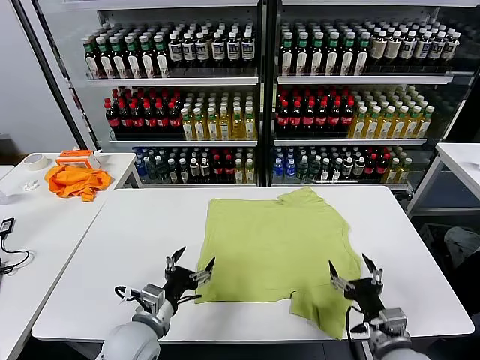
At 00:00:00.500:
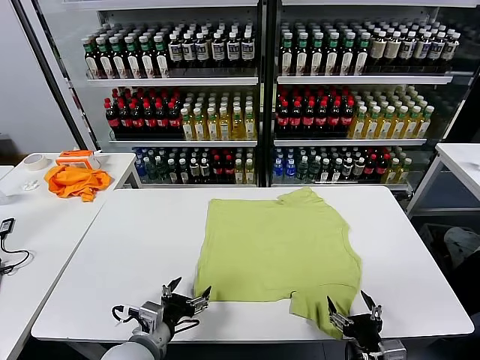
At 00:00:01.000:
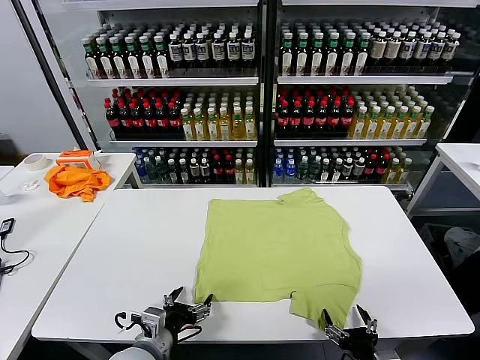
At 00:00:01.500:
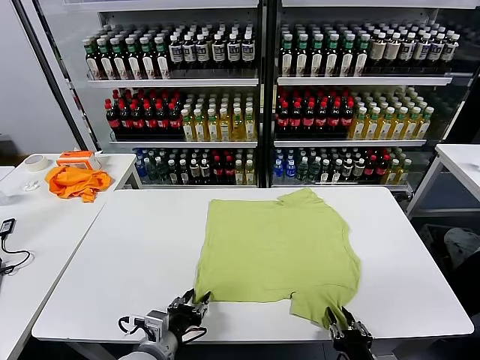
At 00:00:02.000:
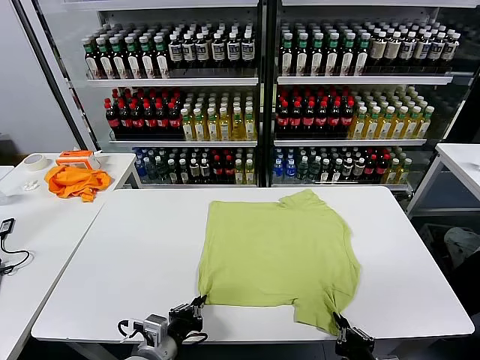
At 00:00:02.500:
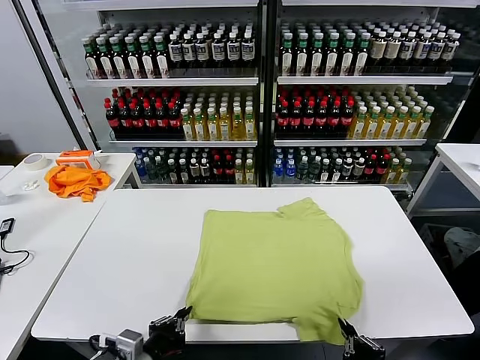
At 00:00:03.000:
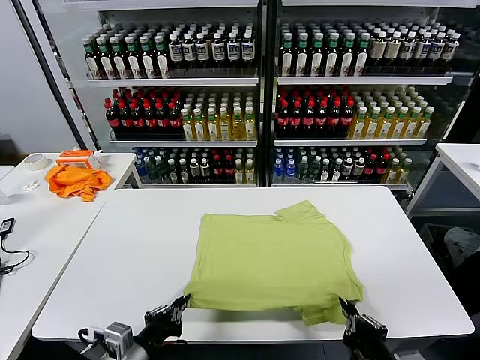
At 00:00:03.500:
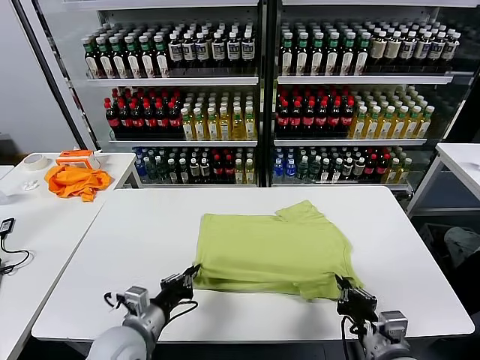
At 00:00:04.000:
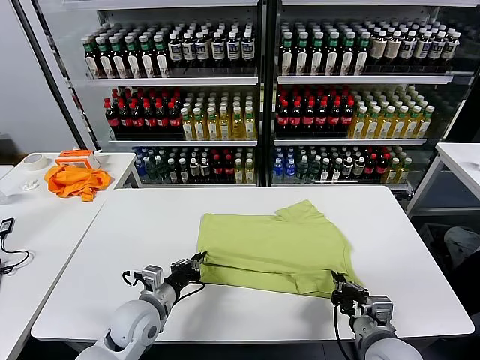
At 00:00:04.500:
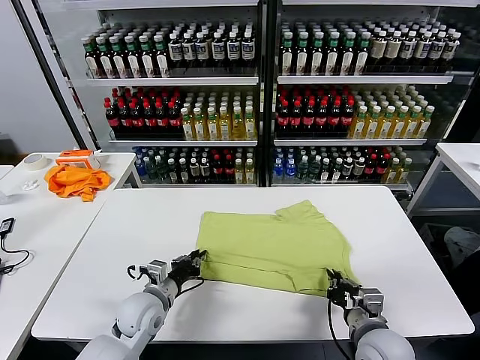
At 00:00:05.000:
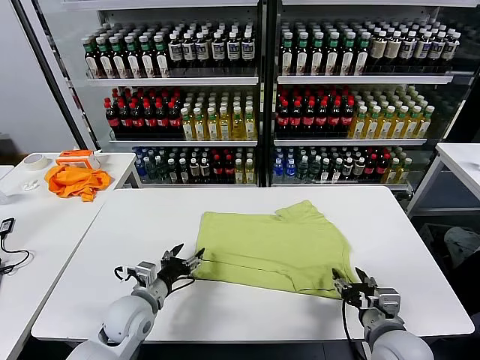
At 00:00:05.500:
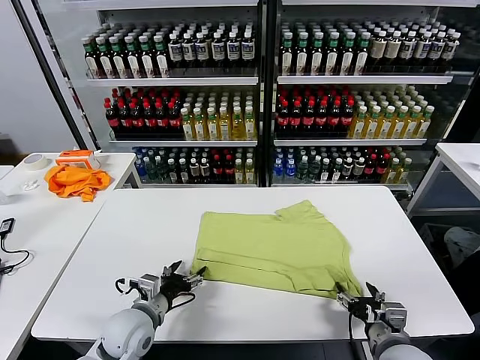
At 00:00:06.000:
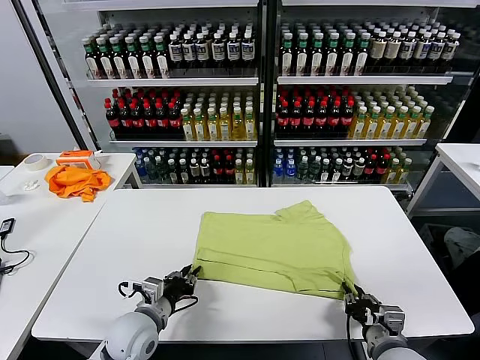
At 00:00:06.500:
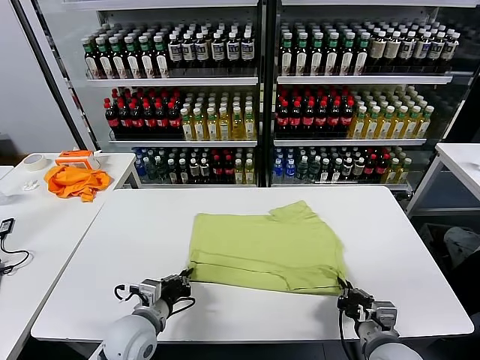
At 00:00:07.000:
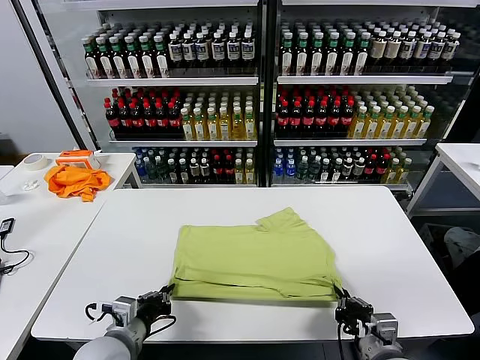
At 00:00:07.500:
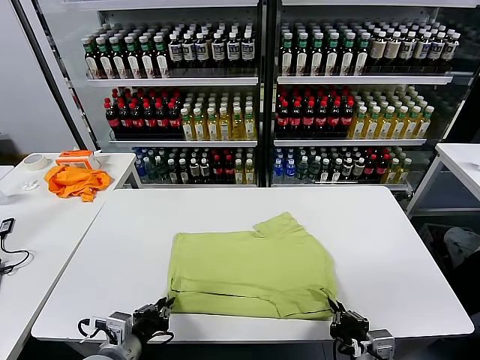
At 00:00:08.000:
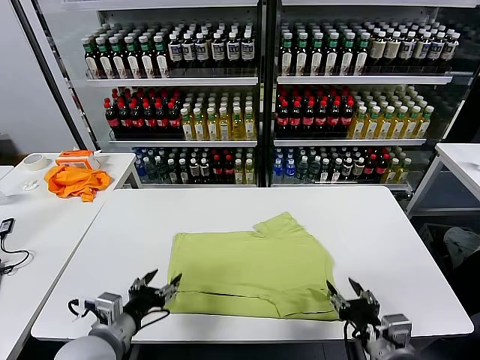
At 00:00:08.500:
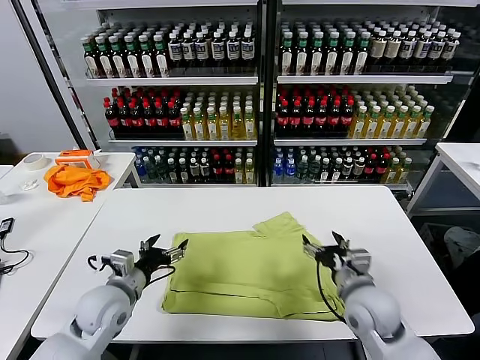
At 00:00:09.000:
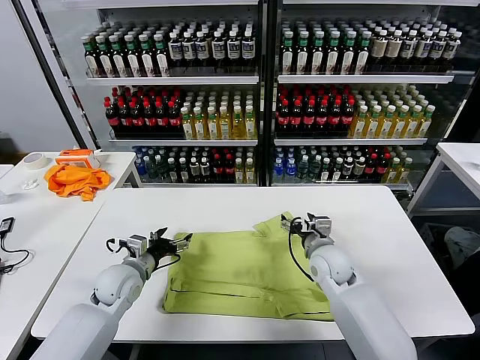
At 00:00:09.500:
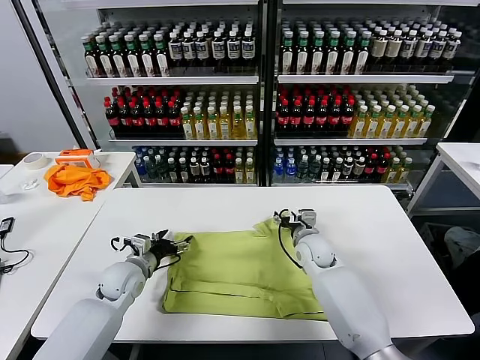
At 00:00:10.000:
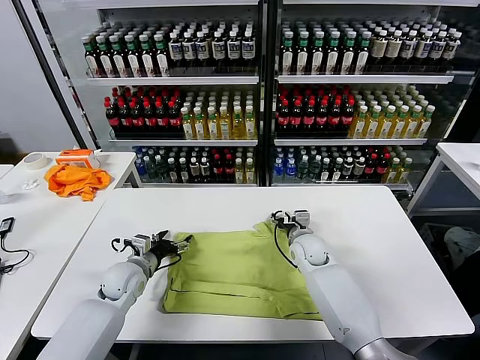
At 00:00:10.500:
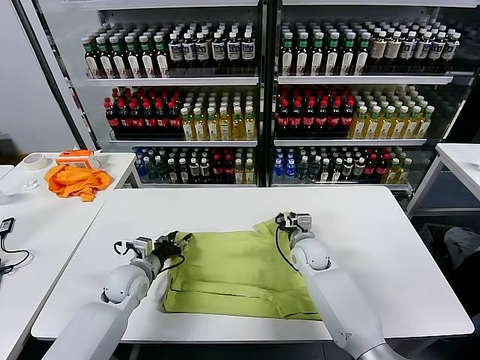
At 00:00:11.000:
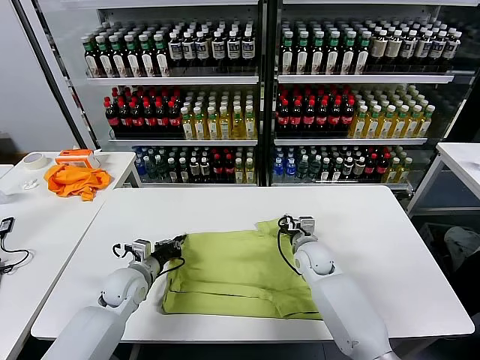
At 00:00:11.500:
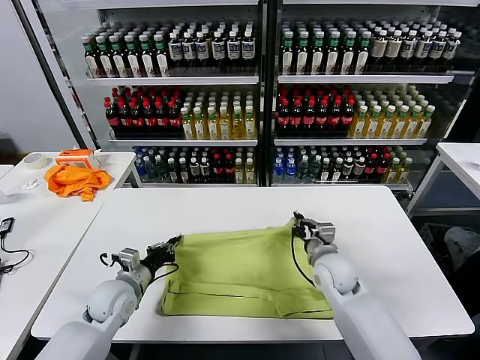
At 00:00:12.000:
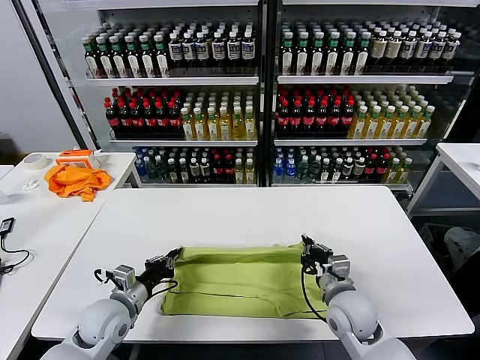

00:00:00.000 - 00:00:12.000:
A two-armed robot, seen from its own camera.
Task of the whole recording: fold and organize the clothes.
Step, 00:00:00.000 - 00:00:01.500: use both grippers simultaneously to clamp the lower edge of the clothing fabric.
Step, 00:00:02.000 - 00:00:04.500: use both grippers to drag the lower edge of the fabric forward and fold it over the upper edge.
Step, 00:00:05.000 - 00:00:07.500: Drag the clothes downward with both gripper.
Step, 00:00:08.000 - 00:00:10.500: use both grippers simultaneously to clamp the upper edge of the clothing fabric.
00:00:02.000 - 00:00:04.000: Both grippers move forward, approximately 10 cm.
00:00:04.000 - 00:00:06.000: The right gripper opens, then closes again. Meanwhile the left gripper opens and closes again.
00:00:06.000 - 00:00:08.000: The right gripper moves upward, roughly 5 cm, and opens its fingers. Meanwhile the left gripper shifts about 10 cm upward and backward, and opens up.
00:00:08.000 - 00:00:10.000: The left gripper is displaced forward and downward by about 20 cm. The right gripper travels forward by approximately 30 cm.
00:00:10.000 - 00:00:12.000: The left gripper shifts some 10 cm backward, and closes its fingers. Meanwhile the right gripper moves backward, about 20 cm, and closes.

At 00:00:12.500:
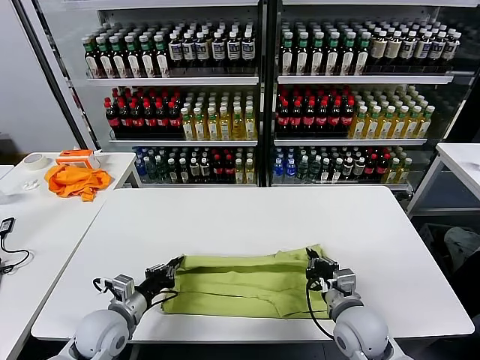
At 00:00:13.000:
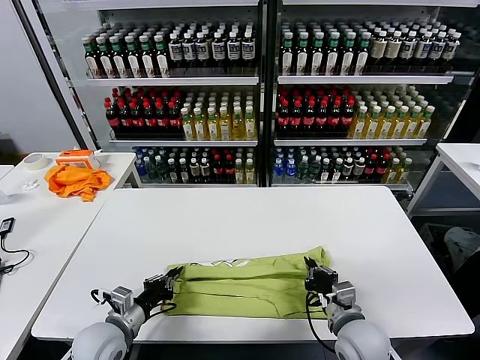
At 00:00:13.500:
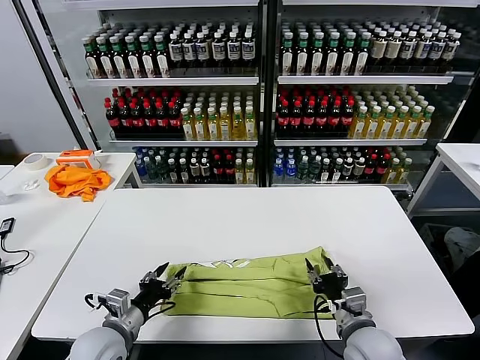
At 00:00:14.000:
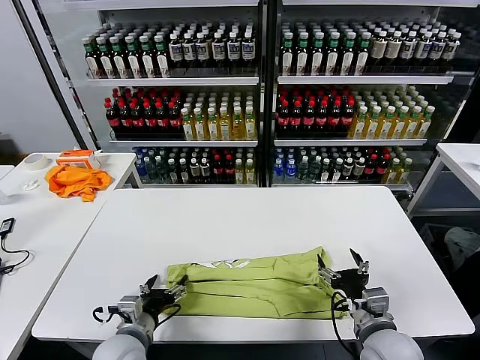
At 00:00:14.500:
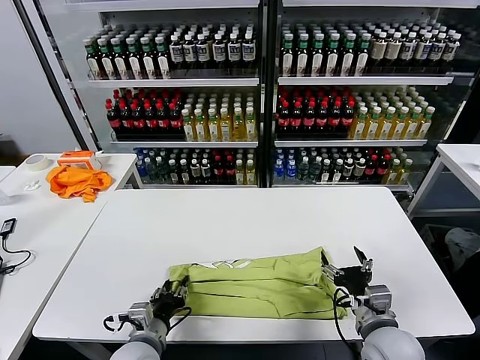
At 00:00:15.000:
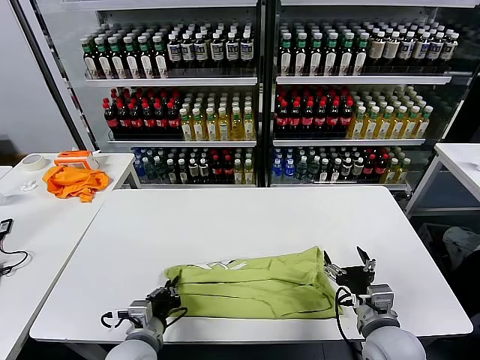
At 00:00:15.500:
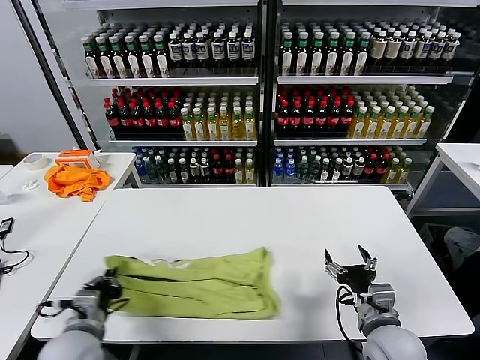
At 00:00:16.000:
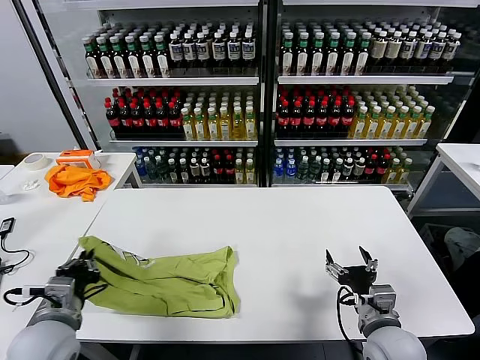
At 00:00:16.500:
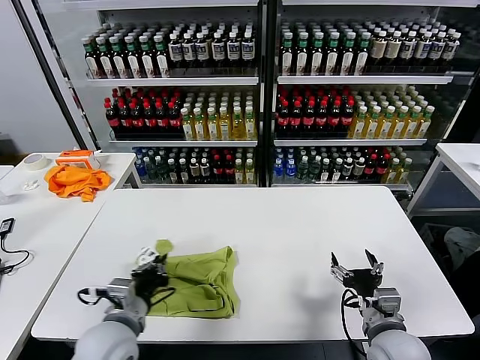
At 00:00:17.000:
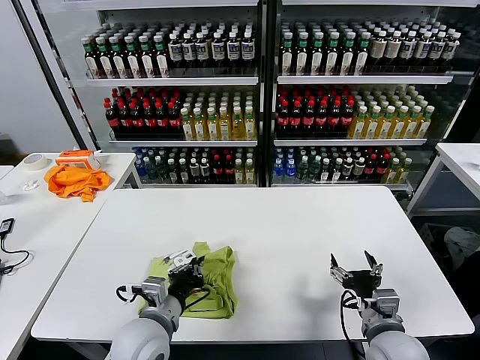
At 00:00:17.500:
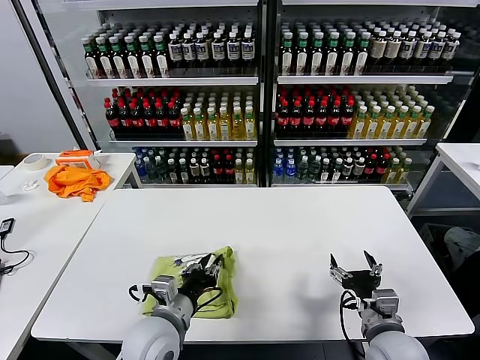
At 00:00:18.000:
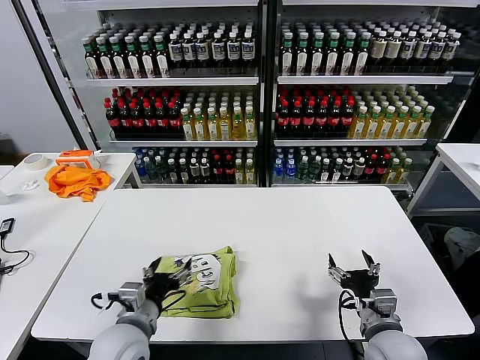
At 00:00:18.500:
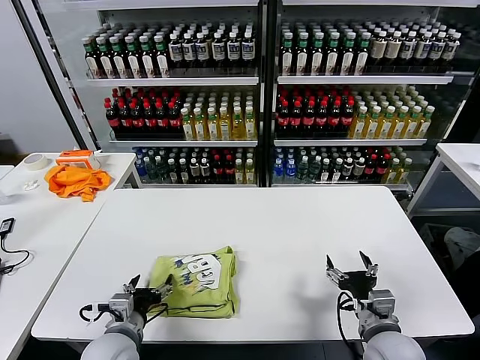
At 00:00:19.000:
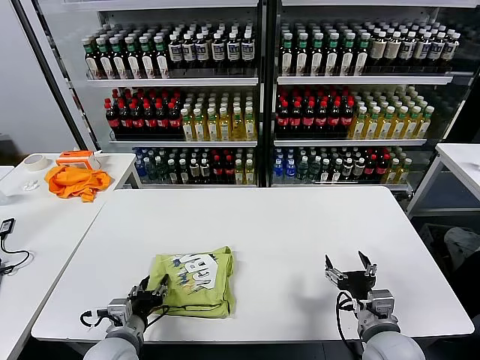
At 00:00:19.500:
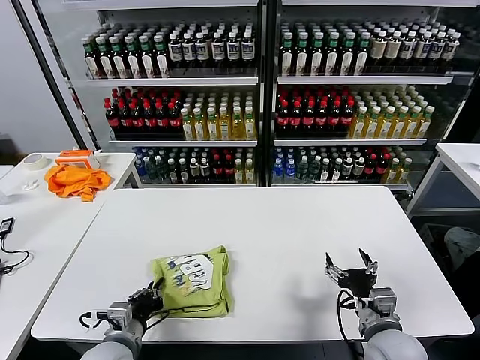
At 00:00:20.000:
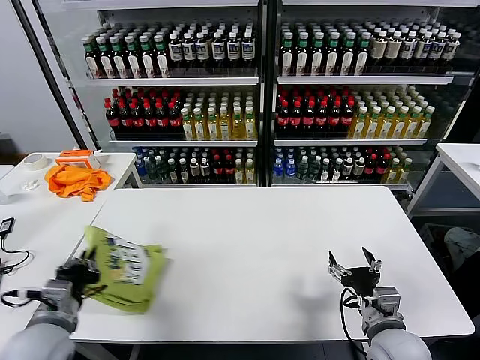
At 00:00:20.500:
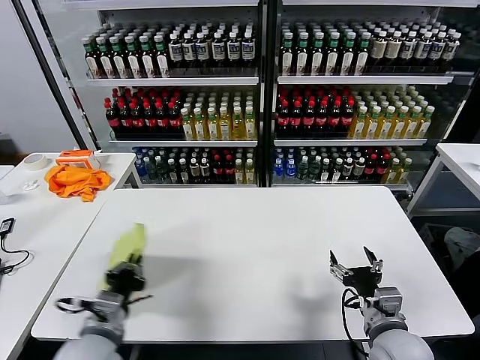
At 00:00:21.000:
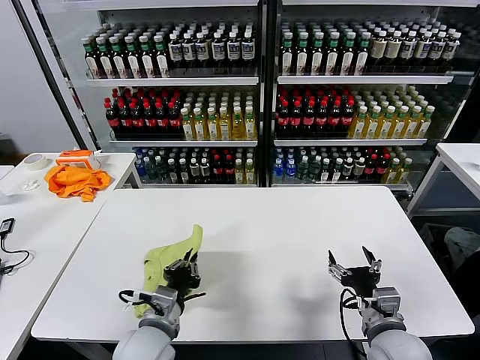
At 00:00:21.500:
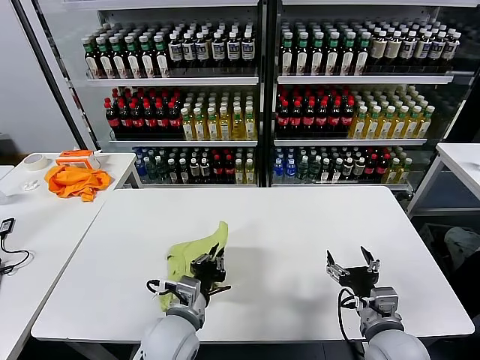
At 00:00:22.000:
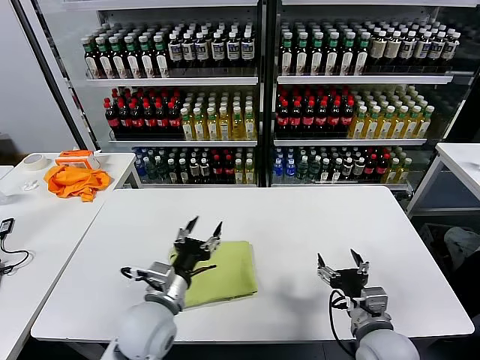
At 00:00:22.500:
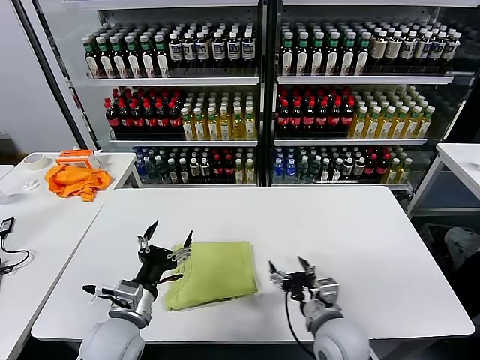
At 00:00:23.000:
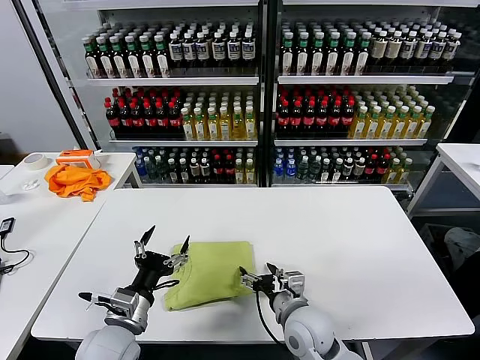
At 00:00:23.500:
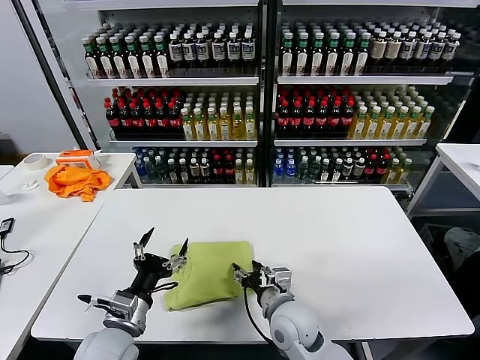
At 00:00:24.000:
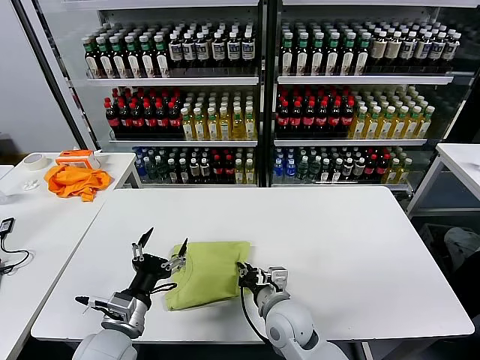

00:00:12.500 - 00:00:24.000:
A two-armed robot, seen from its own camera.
Task of the whole recording: fold and organize the clothes.
Step, 00:00:13.500 - 00:00:14.500: use the left gripper to clamp the left edge of the fabric.
Step, 00:00:15.000 - 00:00:17.500: use the left gripper to drag the left edge of the fabric to the left and folds it over the right edge.
Step, 00:00:18.000 - 00:00:21.500: Flip the folded clothes over with left gripper.
00:00:12.500 - 00:00:14.500: The left gripper heads to the right and backward, covering roughly 10 cm, and opens up; the right gripper ends up roughly 5 cm from where it was, and opens its fingers.
00:00:14.500 - 00:00:16.500: The left gripper heads upward, covering some 10 cm, reaches some 10 cm to the left, then returns, and closes up.
00:00:16.500 - 00:00:18.500: The left gripper is displaced downward by about 5 cm, travels to the right and back again, about 5 cm each way, and opens up.
00:00:18.500 - 00:00:20.000: The left gripper heads to the left and upward, covering about 10 cm, and closes up.
00:00:20.000 - 00:00:22.000: The left gripper is displaced to the right by approximately 15 cm, and opens.
00:00:22.000 - 00:00:24.000: The left gripper heads to the left, covering approximately 10 cm. Meanwhile the right gripper shifts about 20 cm to the left and forward, and closes.

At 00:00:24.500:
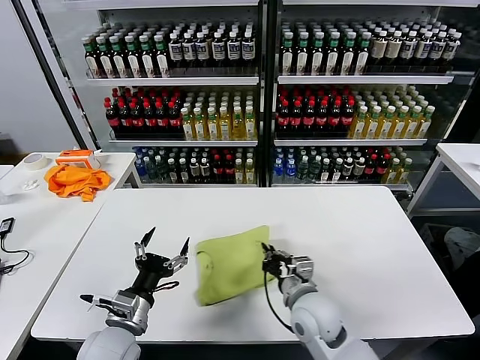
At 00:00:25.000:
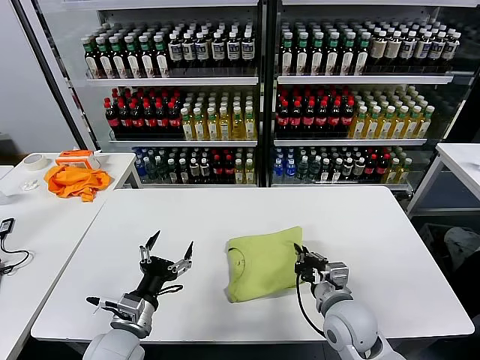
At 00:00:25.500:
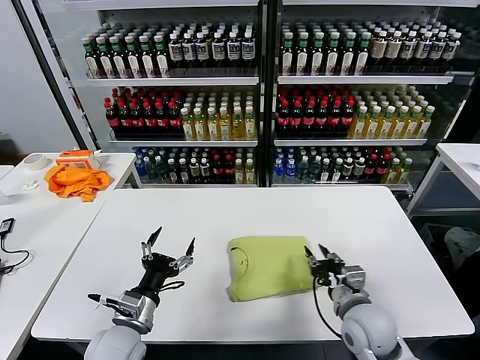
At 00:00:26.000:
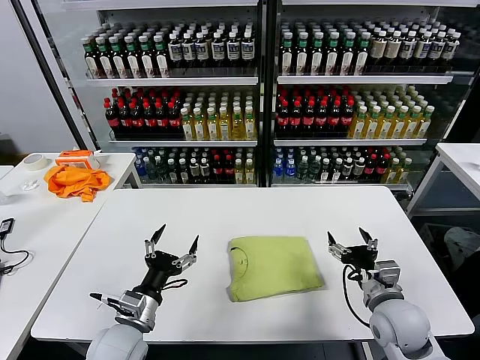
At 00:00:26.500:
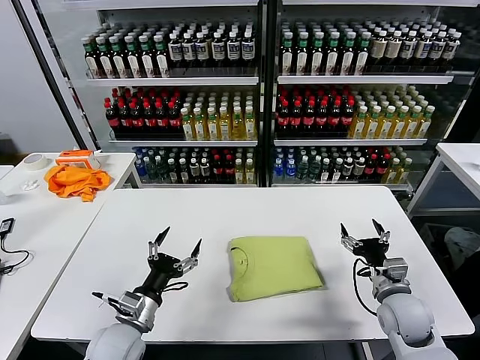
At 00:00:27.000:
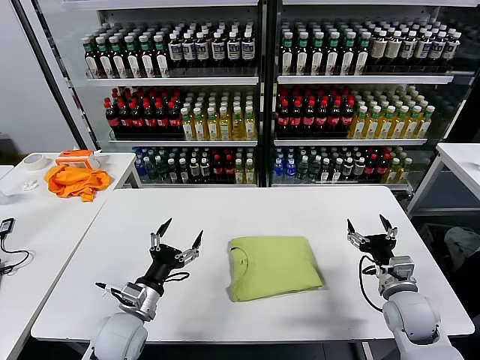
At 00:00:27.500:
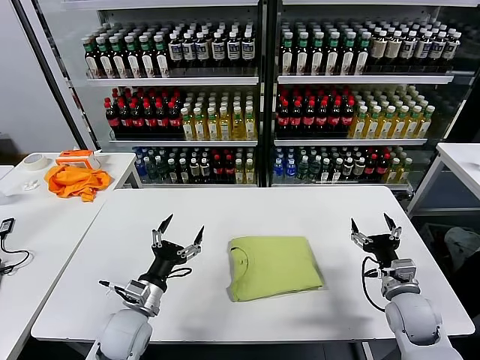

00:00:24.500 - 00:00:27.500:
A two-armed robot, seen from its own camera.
Task of the whole recording: fold and organize the clothes.
00:00:24.500 - 00:00:26.000: The right gripper is displaced to the right by approximately 15 cm, and opens its fingers.
00:00:26.000 - 00:00:27.500: The right gripper travels to the right by approximately 5 cm.
